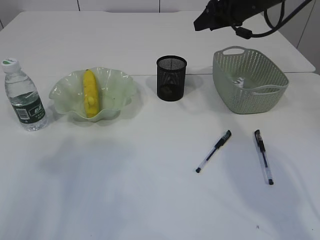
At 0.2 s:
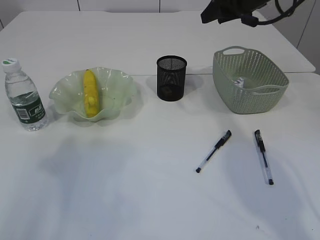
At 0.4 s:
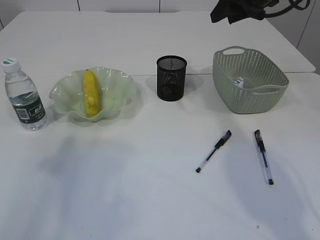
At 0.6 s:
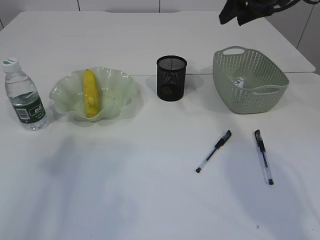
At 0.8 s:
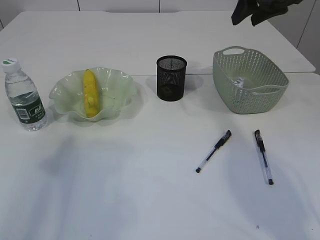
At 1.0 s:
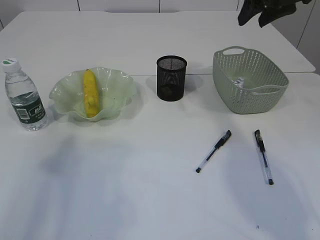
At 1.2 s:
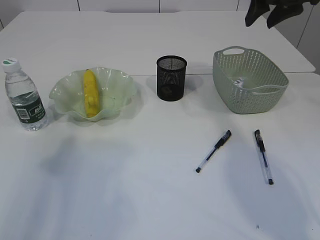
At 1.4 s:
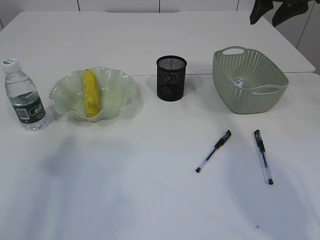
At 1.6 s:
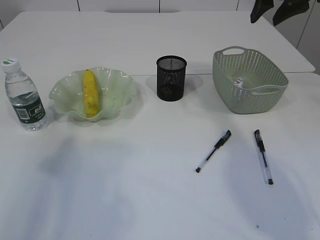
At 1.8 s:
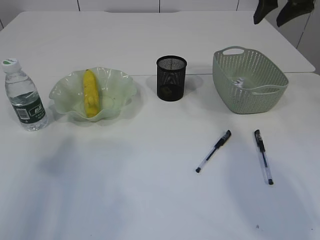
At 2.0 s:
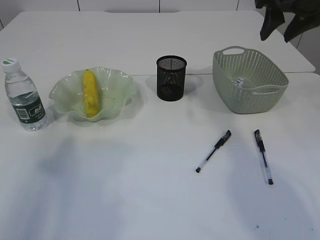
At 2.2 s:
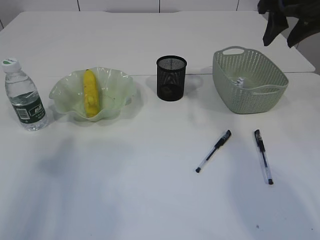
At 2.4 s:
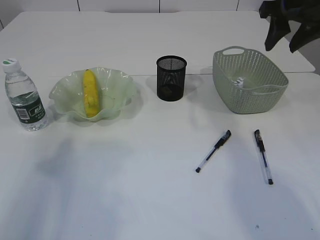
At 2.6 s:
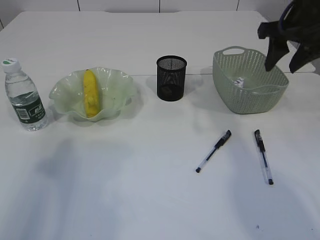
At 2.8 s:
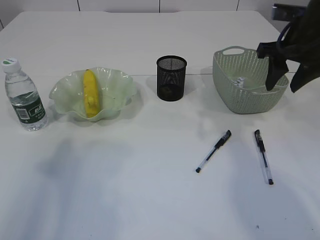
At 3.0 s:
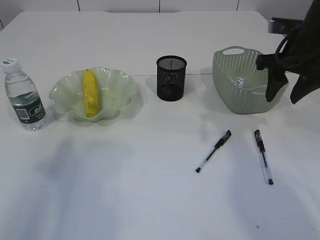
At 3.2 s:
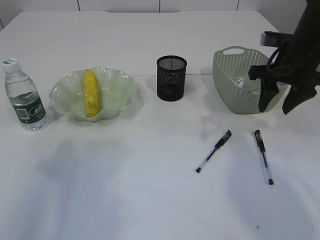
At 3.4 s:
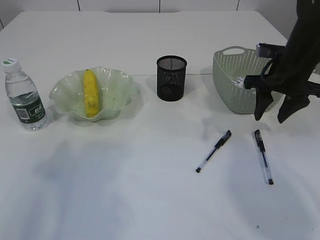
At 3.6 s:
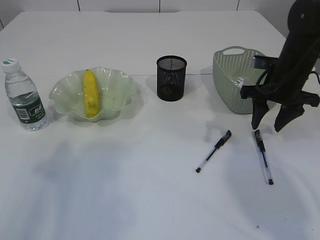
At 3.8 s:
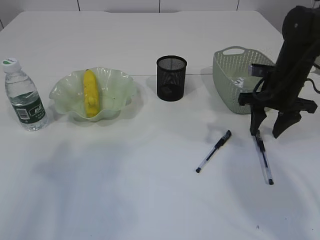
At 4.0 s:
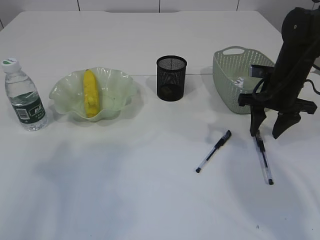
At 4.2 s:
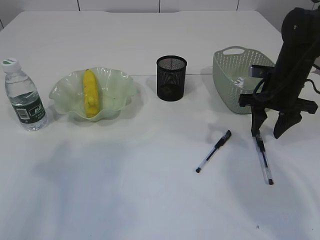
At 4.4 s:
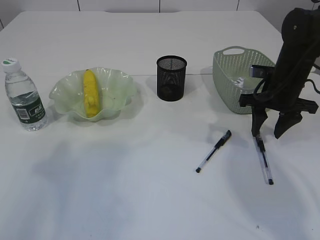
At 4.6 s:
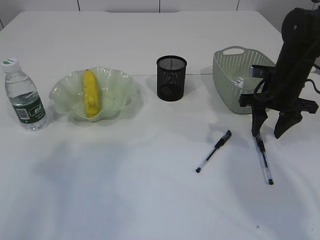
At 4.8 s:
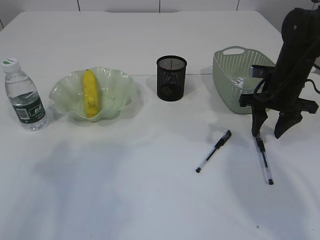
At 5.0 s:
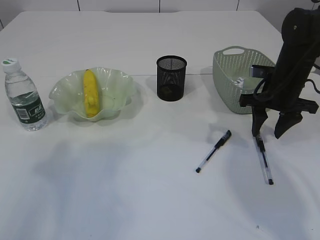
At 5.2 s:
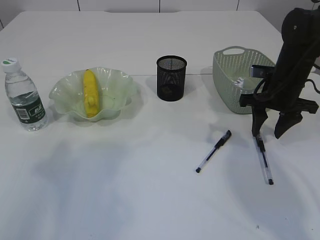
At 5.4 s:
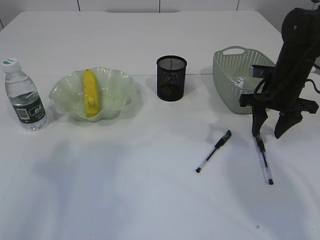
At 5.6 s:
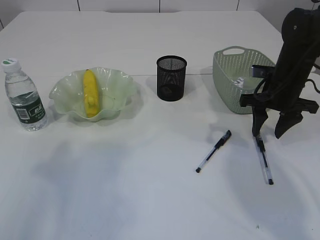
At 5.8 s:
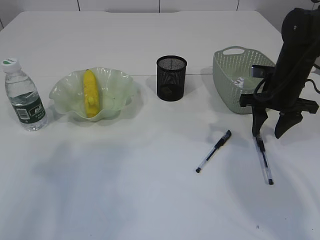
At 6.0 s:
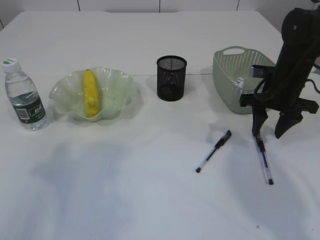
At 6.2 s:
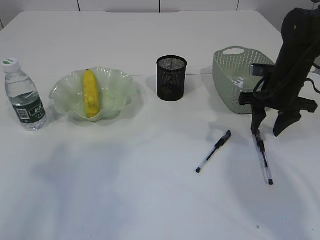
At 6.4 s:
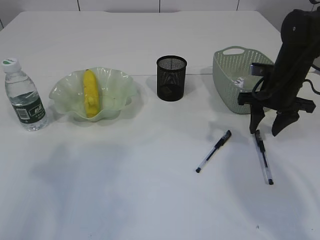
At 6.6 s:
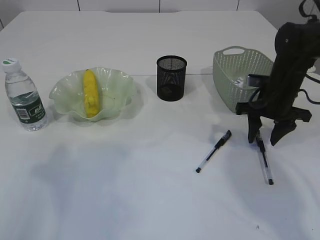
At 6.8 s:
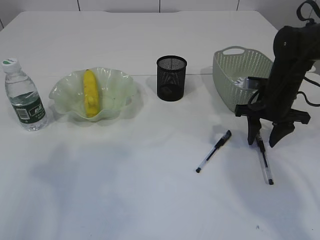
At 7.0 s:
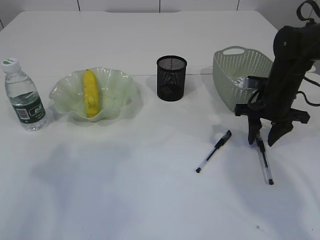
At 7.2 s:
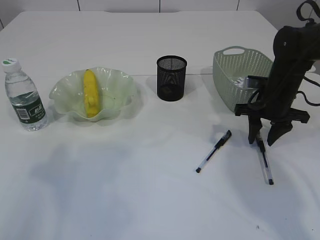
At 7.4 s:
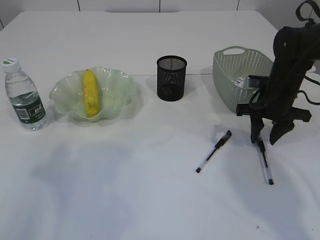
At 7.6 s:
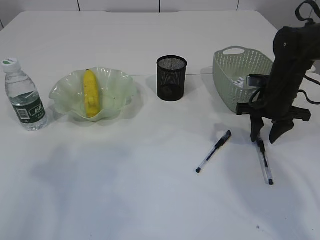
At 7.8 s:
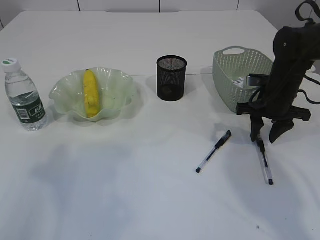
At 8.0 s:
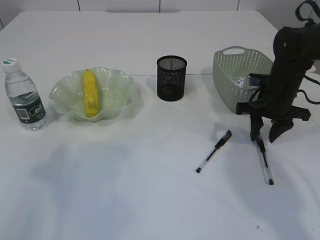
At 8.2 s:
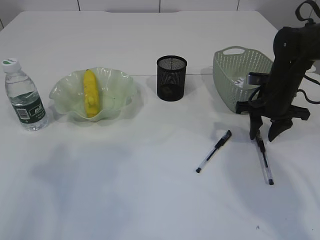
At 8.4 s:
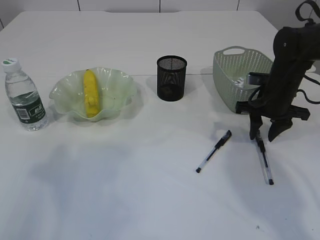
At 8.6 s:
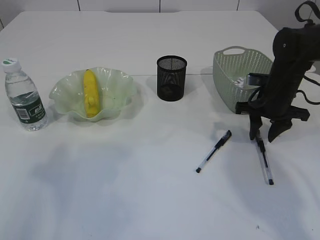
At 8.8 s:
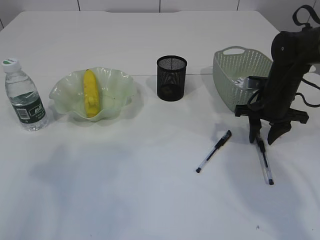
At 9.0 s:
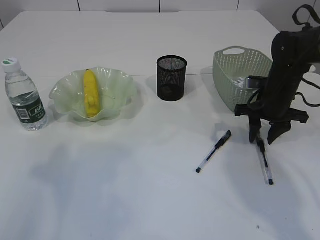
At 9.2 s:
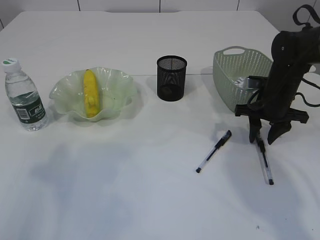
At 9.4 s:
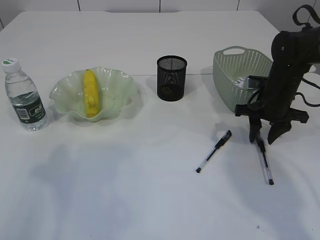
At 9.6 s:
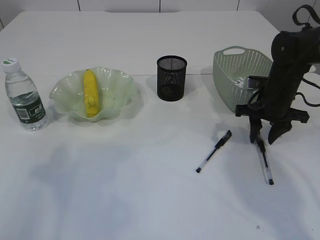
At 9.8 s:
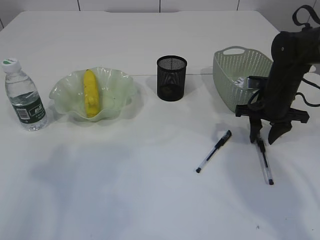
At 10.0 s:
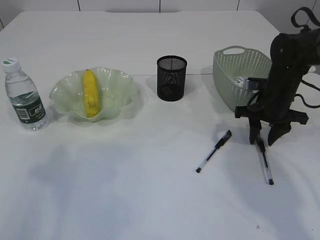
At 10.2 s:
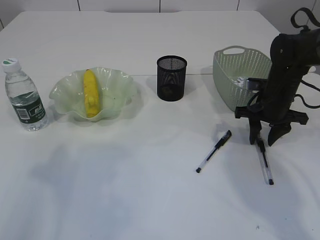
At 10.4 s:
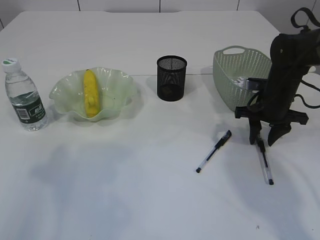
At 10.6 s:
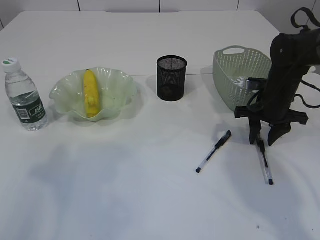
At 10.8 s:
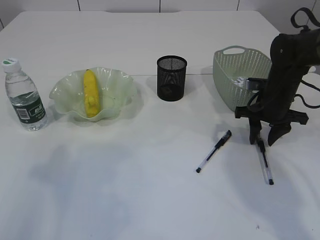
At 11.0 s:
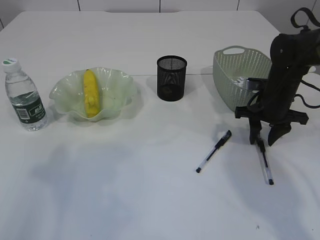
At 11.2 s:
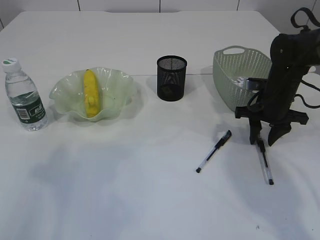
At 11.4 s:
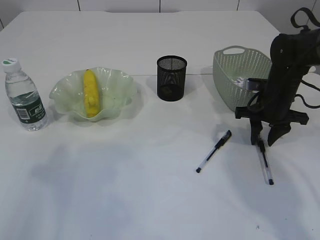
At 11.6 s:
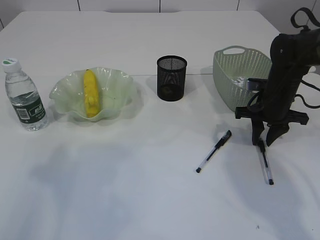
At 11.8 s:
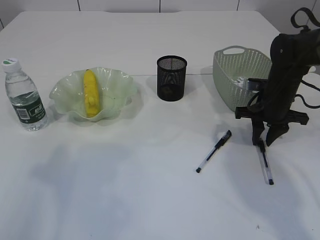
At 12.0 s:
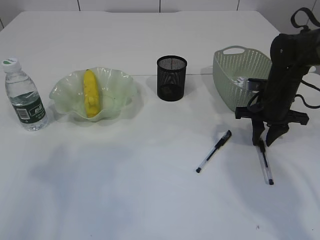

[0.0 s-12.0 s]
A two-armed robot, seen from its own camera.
0.0 to 1.6 s: The right gripper moves upward and backward, some 10 cm.
1.6 to 3.0 s: The right gripper moves downward and backward, approximately 10 cm.
3.0 to 4.4 s: The right gripper travels downward by approximately 10 cm.
4.4 to 6.0 s: The two grippers keep their place.
6.0 to 7.6 s: The grippers make only small movements.
7.6 to 12.0 s: The two grippers keep their place.

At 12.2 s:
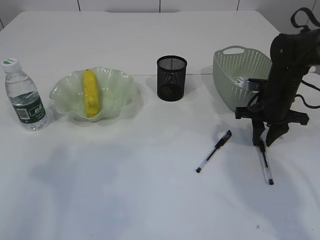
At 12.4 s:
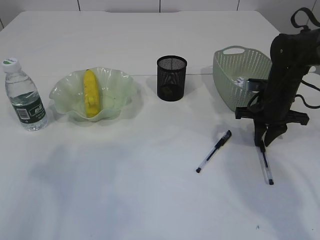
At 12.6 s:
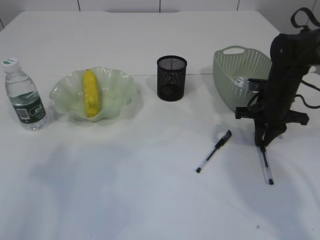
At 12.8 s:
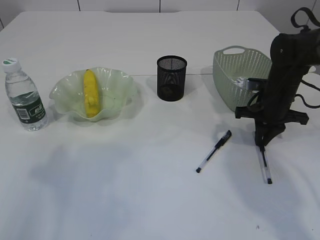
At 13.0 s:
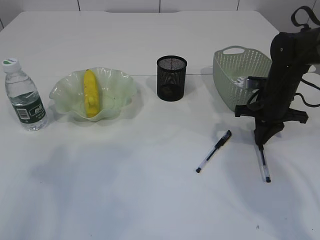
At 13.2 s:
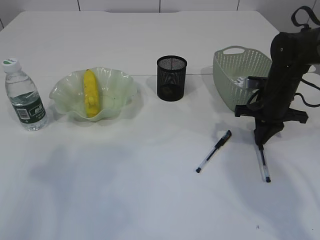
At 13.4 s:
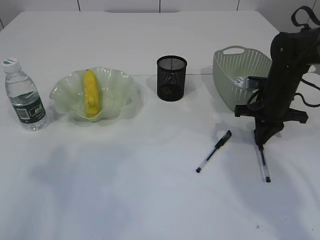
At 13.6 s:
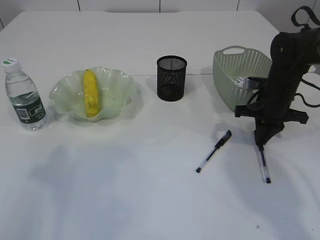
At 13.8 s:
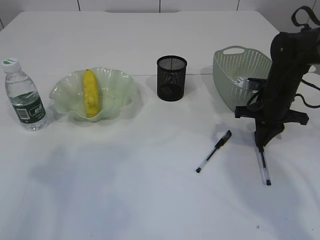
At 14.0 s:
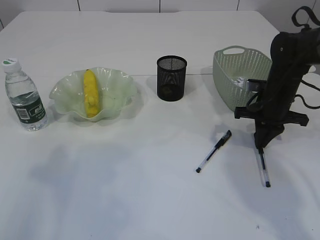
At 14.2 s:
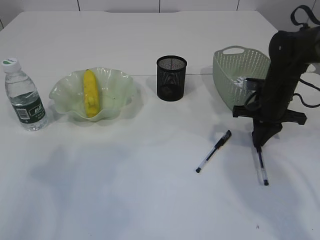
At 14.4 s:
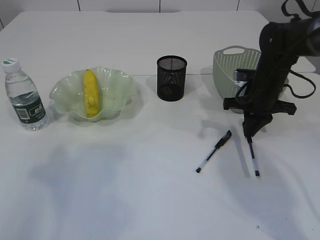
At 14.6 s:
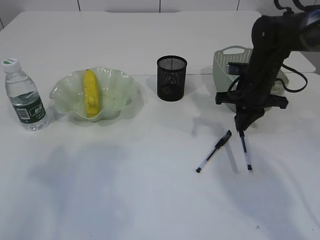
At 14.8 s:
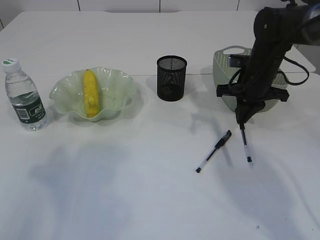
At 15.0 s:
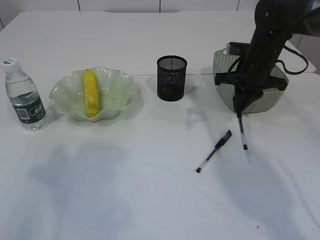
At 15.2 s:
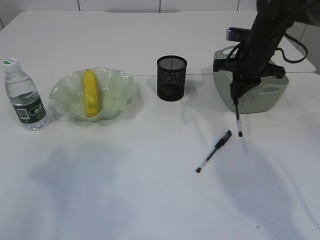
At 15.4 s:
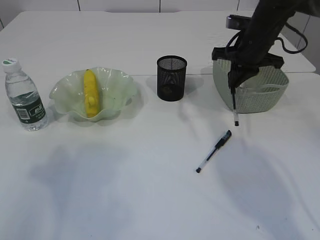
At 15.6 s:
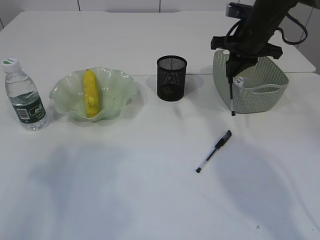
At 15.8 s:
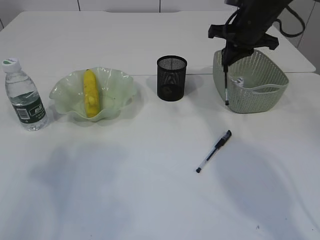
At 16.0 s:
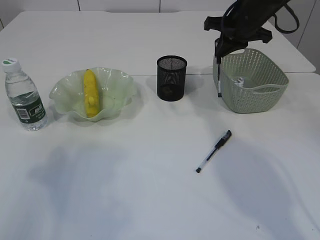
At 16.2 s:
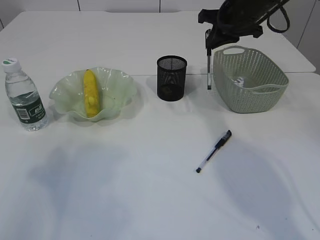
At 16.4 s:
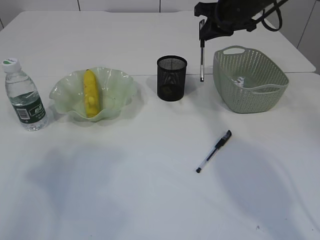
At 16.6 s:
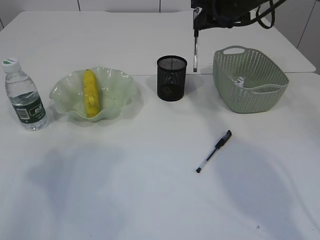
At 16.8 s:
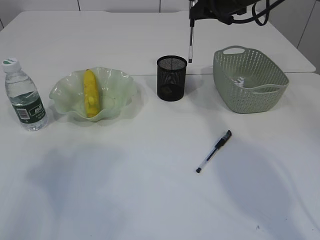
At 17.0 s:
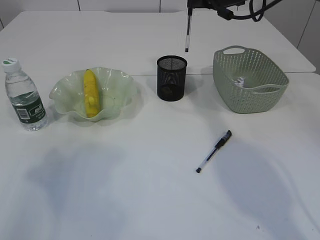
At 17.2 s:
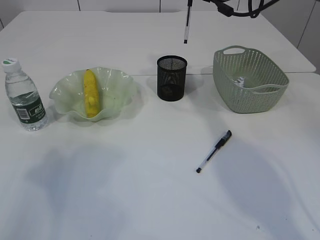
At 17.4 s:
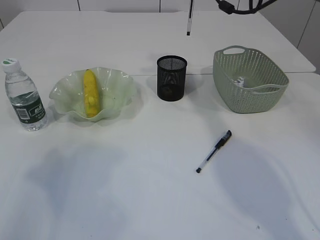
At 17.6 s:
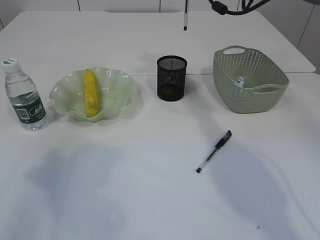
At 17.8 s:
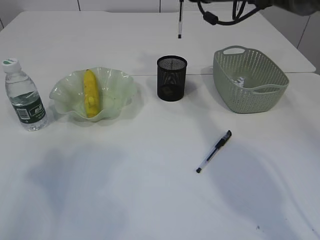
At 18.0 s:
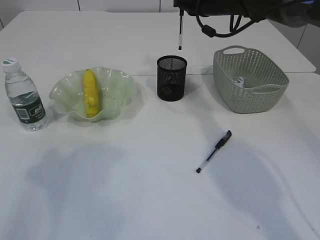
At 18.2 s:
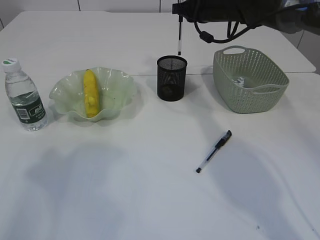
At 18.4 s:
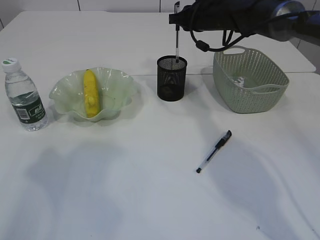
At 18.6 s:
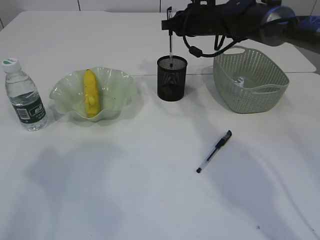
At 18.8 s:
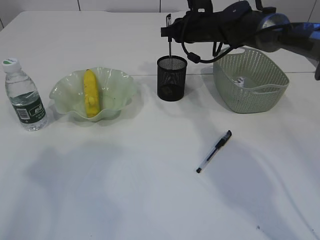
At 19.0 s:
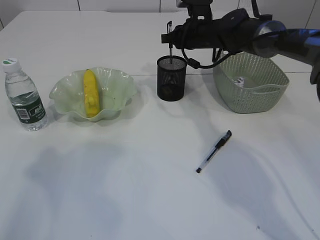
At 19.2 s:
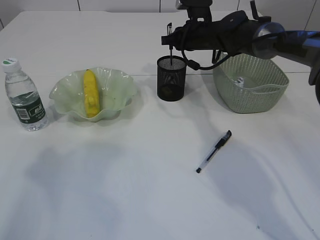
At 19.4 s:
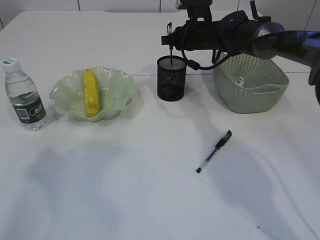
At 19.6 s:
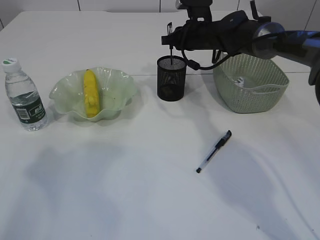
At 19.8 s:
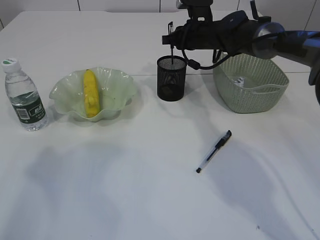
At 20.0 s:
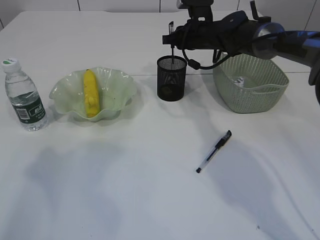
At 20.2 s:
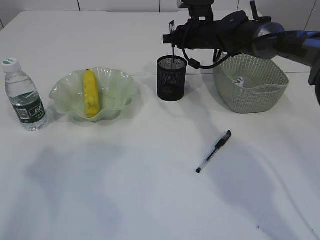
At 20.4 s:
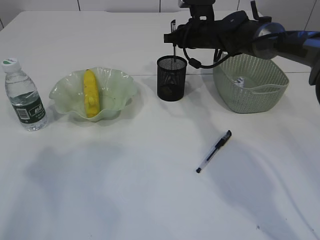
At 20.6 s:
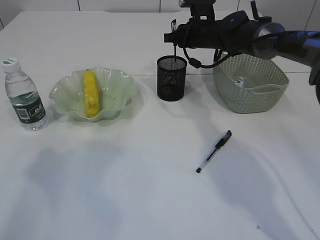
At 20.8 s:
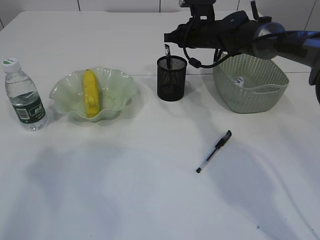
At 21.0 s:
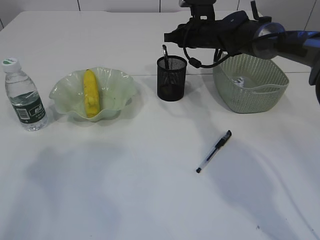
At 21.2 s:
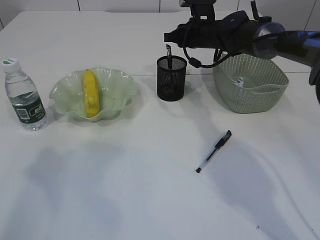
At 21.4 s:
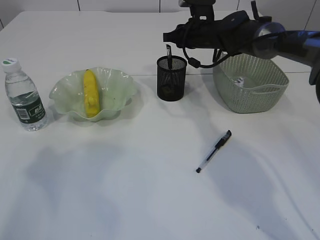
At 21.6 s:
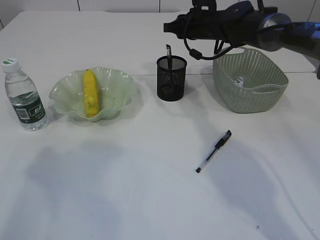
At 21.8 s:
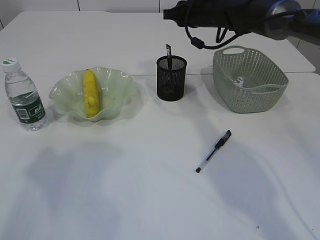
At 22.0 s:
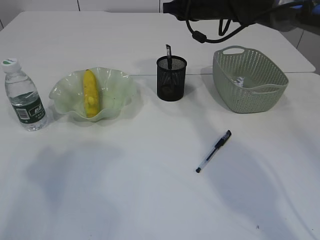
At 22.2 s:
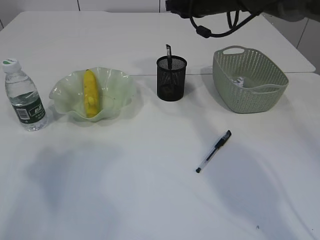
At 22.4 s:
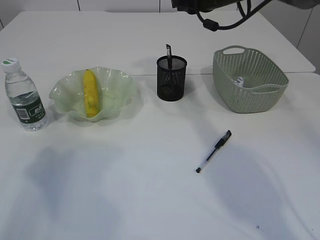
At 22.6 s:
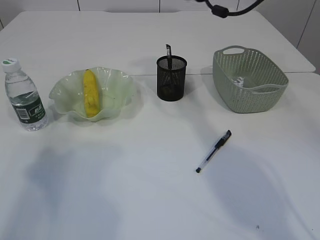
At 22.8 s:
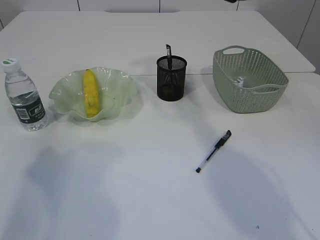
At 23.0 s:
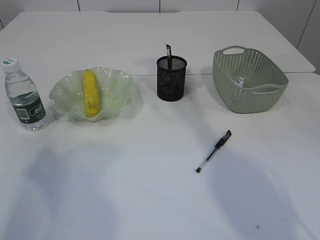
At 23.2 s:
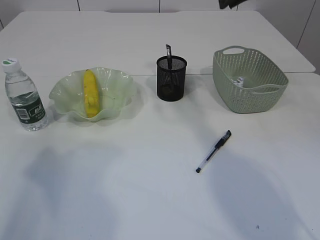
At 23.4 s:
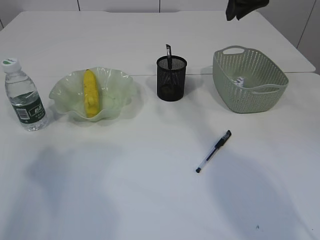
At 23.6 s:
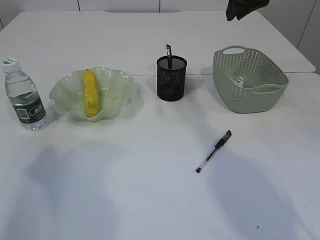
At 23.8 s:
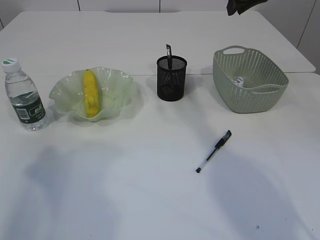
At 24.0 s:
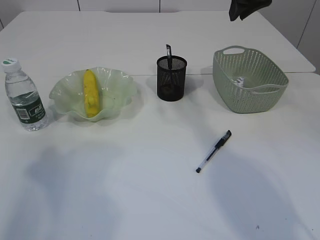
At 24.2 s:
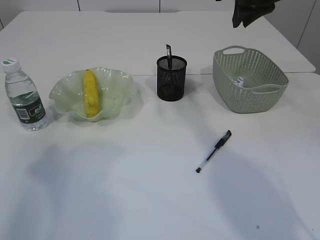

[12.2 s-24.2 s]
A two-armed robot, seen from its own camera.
Step, 12.2 to 15.0 s: Pick up the pen with right arm.
Step, 15.2 to 21.4 s: Place the pen into the pen holder.
12.2 to 13.8 s: The right gripper closes.
13.8 to 15.2 s: The right gripper shifts about 10 cm upward.
15.2 to 16.6 s: The right gripper travels upward by about 10 cm.
16.6 to 18.2 s: The right gripper ends up some 5 cm from where it was.
18.2 to 19.8 s: The right gripper is displaced downward by some 5 cm.
19.8 to 21.2 s: Neither gripper changes place.
21.2 to 22.6 s: The right gripper heads upward and backward, covering about 15 cm.
22.6 to 24.2 s: The right gripper goes about 5 cm backward.
